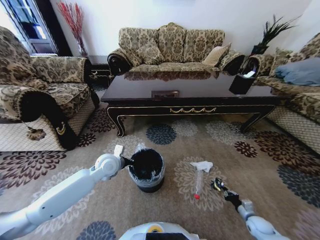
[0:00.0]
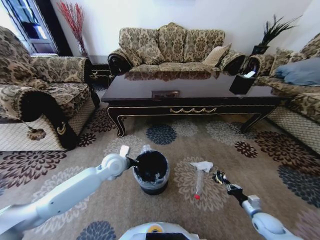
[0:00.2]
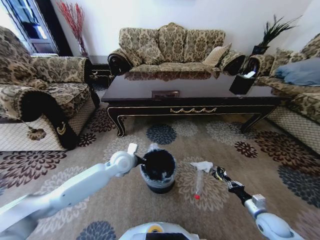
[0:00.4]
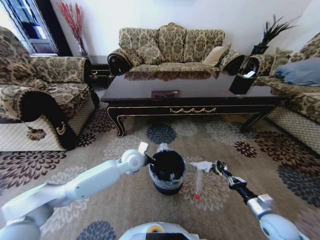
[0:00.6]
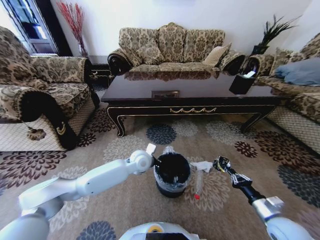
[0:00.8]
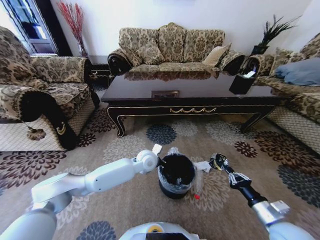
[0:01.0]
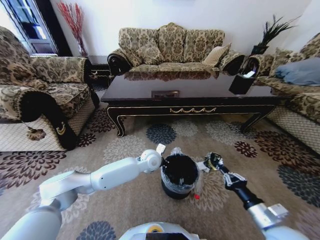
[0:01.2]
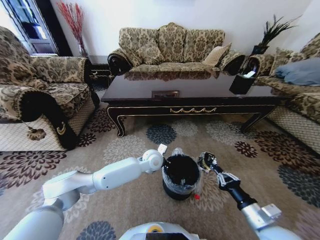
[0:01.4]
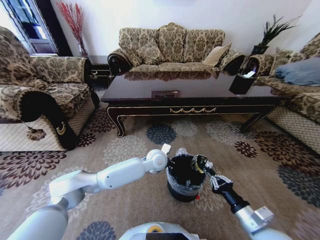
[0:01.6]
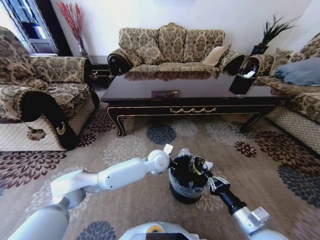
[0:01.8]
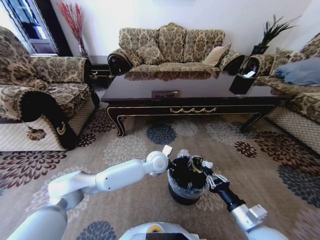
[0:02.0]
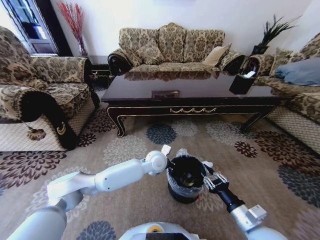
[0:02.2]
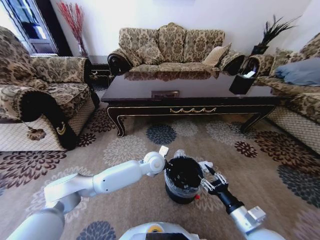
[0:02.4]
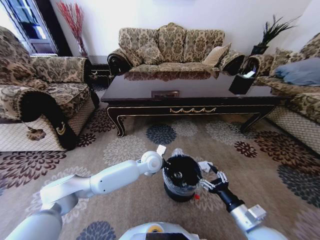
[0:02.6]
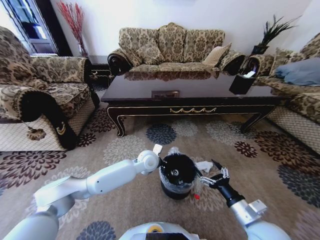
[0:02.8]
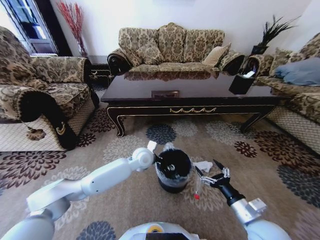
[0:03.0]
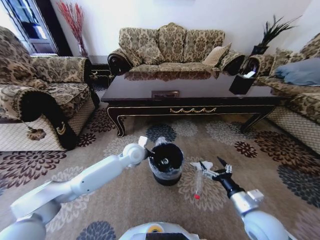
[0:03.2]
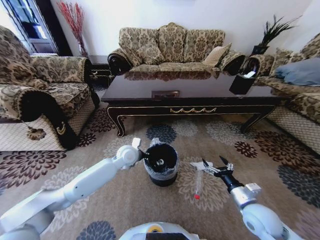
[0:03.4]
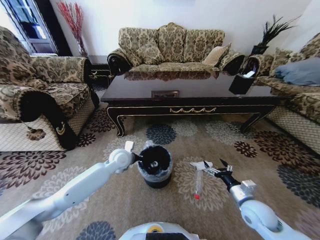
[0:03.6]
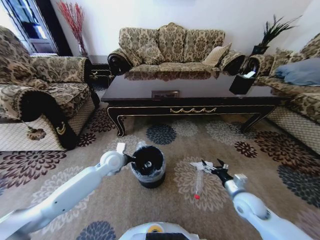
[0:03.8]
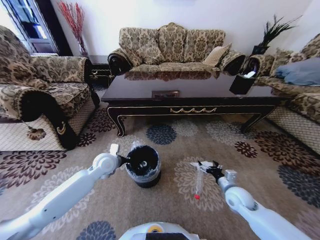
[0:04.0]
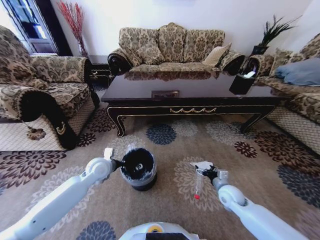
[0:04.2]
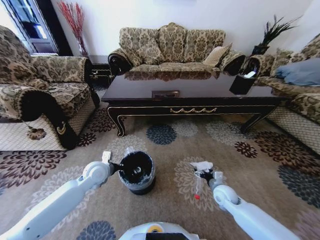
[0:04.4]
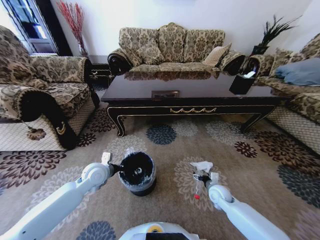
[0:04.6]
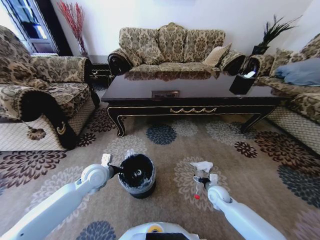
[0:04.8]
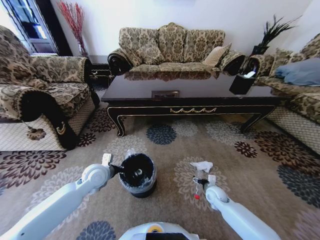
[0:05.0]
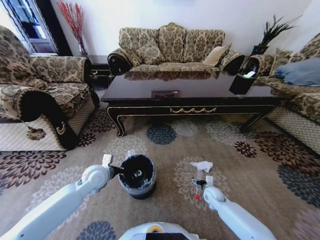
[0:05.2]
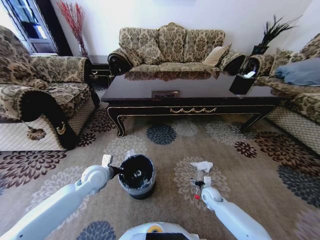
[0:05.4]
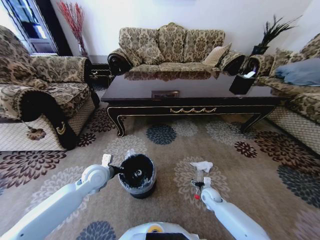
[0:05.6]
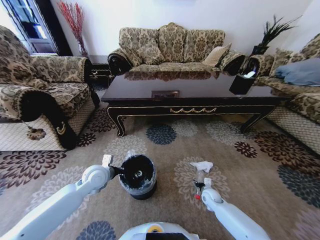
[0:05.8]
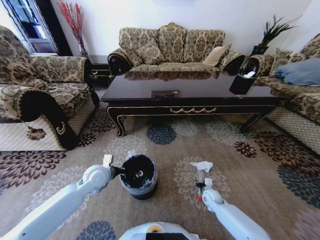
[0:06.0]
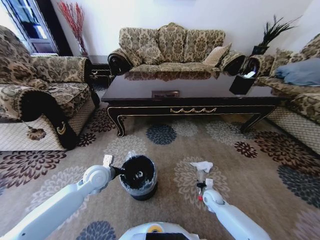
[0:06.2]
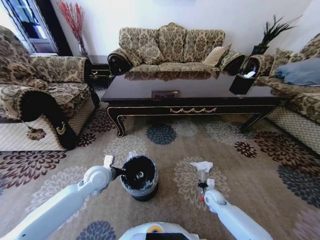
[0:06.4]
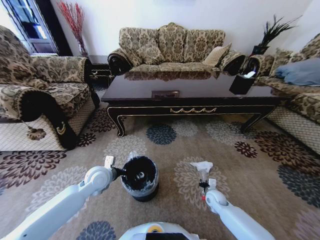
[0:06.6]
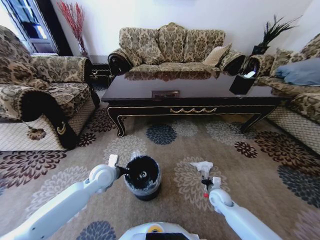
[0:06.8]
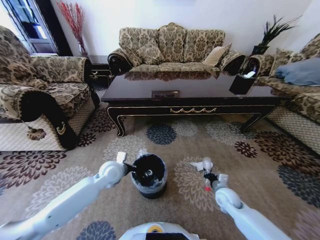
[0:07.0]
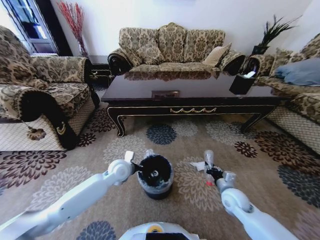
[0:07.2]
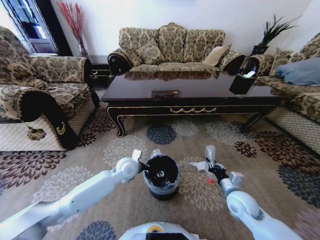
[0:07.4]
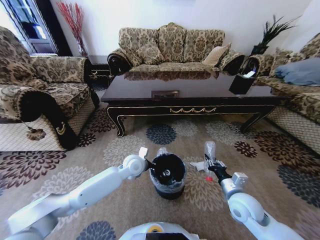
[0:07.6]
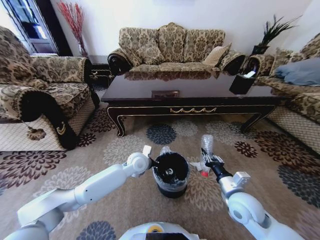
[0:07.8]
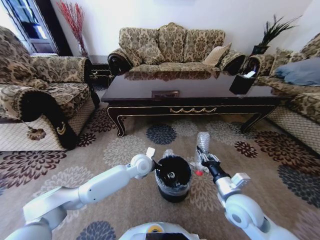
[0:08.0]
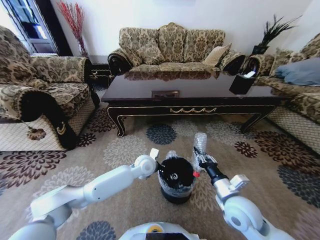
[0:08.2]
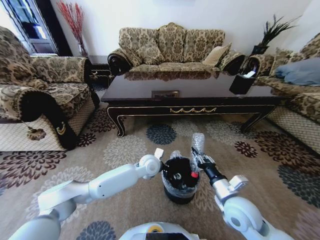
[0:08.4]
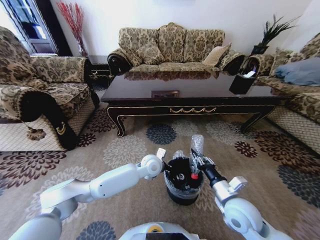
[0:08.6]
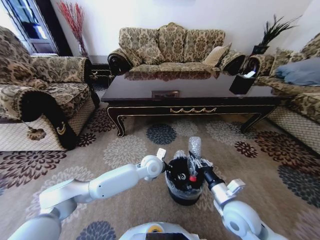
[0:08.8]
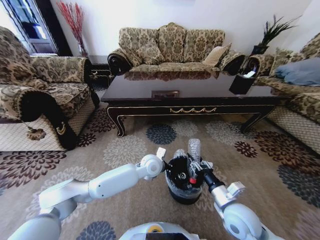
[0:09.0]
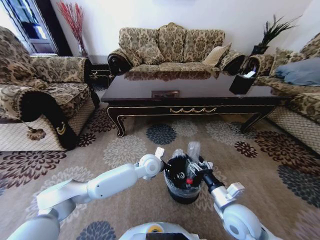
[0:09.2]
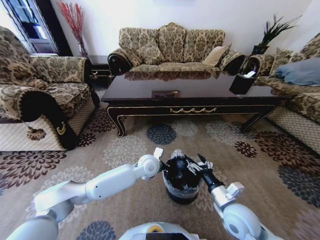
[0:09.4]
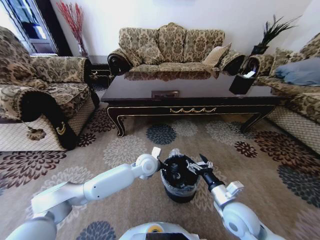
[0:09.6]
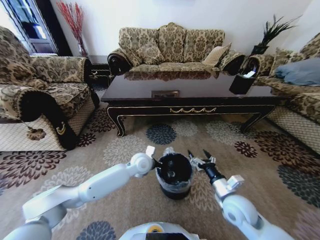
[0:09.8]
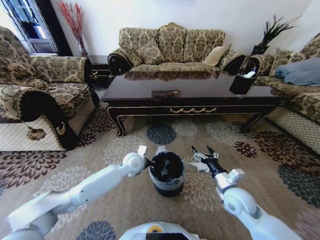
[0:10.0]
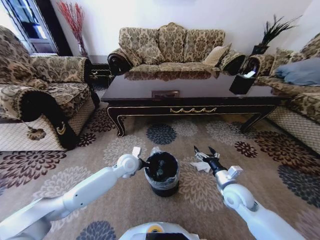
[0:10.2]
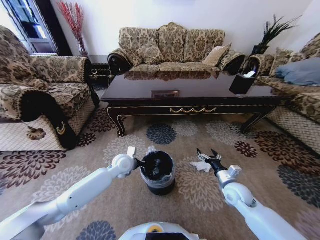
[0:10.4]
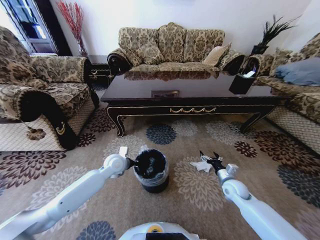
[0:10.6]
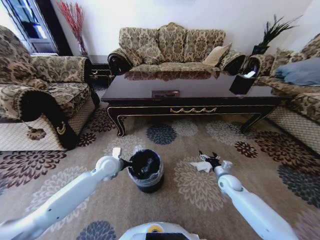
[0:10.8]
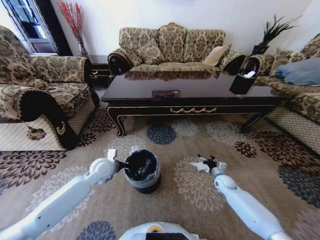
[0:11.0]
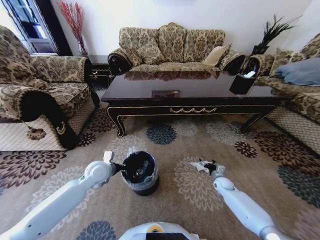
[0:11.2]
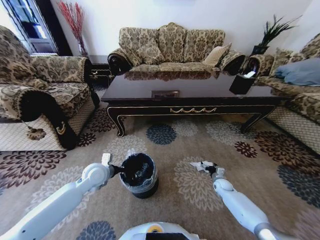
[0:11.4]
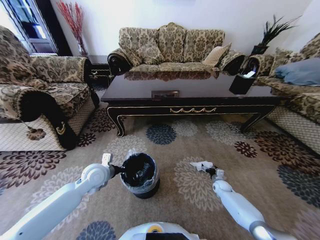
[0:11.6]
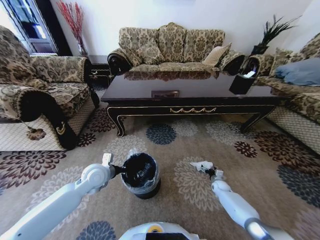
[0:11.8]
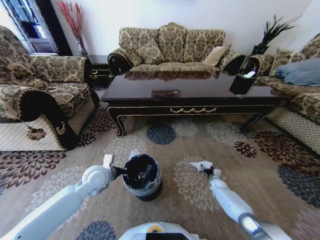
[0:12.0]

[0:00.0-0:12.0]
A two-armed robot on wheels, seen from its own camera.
Task of the whole recording: Move to the front of the table and pick up the trash from the floor, then place it into the trash bin.
0:00.0 to 0:01.6: The right gripper moves upward and to the left, roughly 30 cm; the left gripper is displaced to the right by roughly 20 cm.
0:01.6 to 0:03.0: The left gripper heads to the left, covering approximately 5 cm. Meanwhile the right gripper opens.
0:03.0 to 0:04.4: The right gripper is displaced forward and downward by roughly 20 cm. The left gripper is displaced to the left by about 20 cm.
0:04.4 to 0:06.0: The right gripper moves downward, some 10 cm, and closes.
0:06.0 to 0:07.6: The left gripper moves to the right, approximately 15 cm. The right gripper shifts roughly 25 cm upward and backward.
0:07.6 to 0:09.0: The left gripper is displaced to the right by approximately 10 cm. Meanwhile the right gripper shifts by roughly 5 cm.
0:09.0 to 0:10.4: The left gripper is displaced to the left by about 15 cm. Meanwhile the right gripper moves forward, to the right and downward, roughly 15 cm, and opens its fingers.
0:10.4 to 0:12.0: The right gripper shifts about 25 cm downward and forward. Meanwhile the left gripper is displaced to the left and backward by some 10 cm.

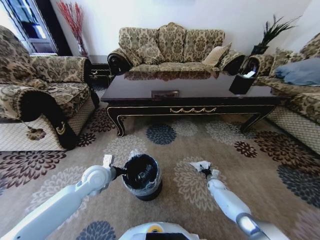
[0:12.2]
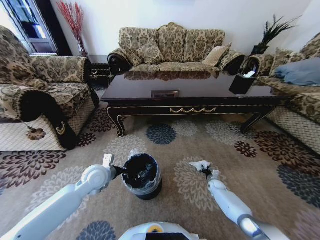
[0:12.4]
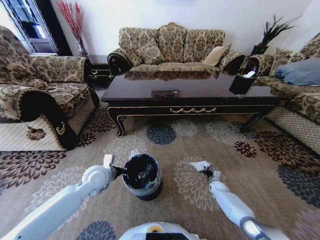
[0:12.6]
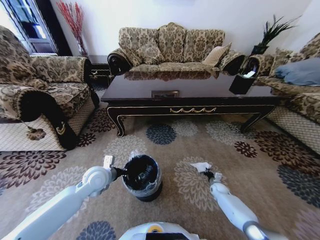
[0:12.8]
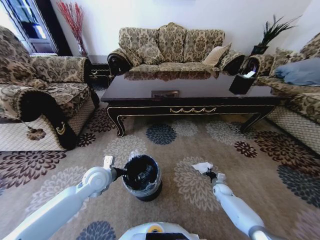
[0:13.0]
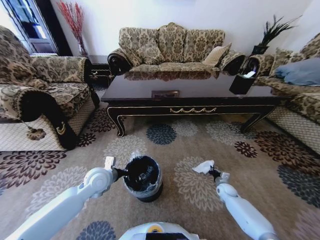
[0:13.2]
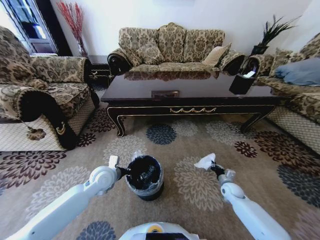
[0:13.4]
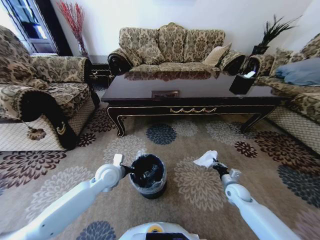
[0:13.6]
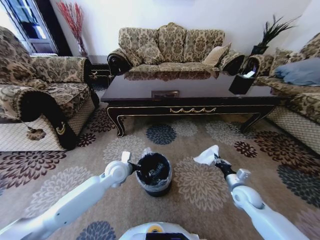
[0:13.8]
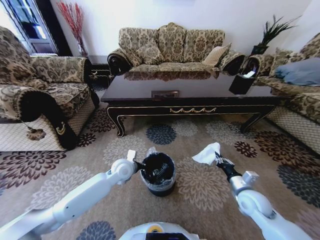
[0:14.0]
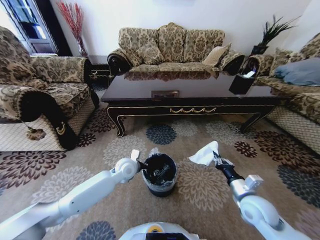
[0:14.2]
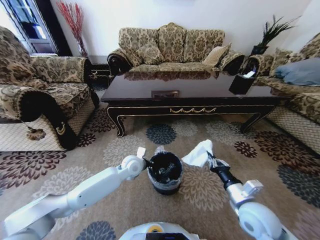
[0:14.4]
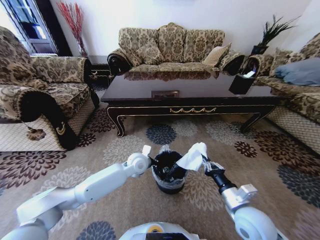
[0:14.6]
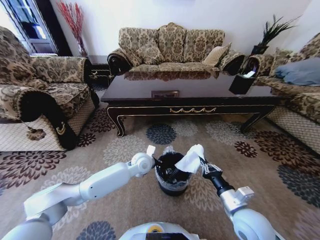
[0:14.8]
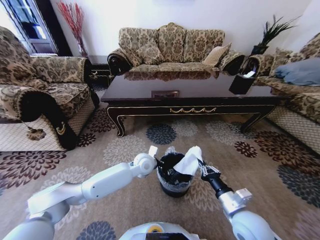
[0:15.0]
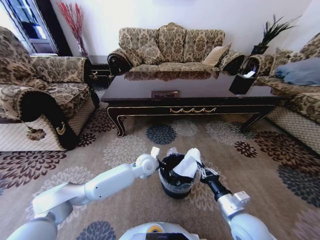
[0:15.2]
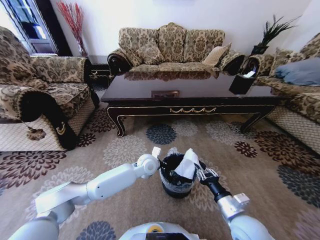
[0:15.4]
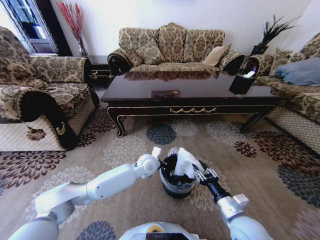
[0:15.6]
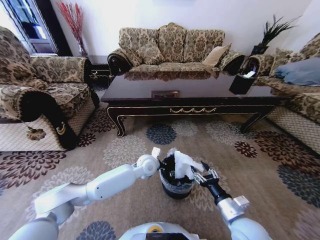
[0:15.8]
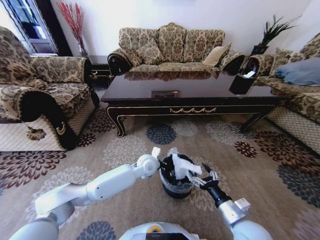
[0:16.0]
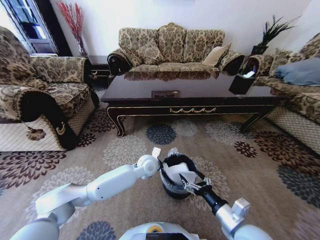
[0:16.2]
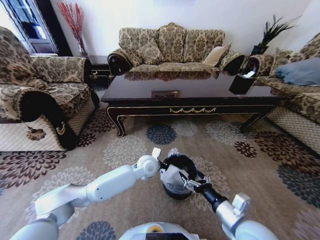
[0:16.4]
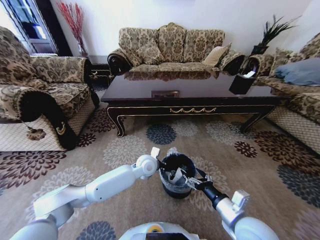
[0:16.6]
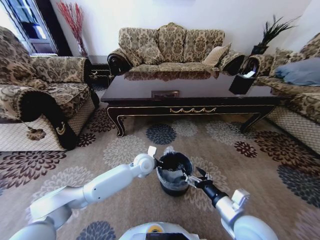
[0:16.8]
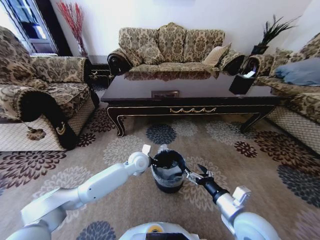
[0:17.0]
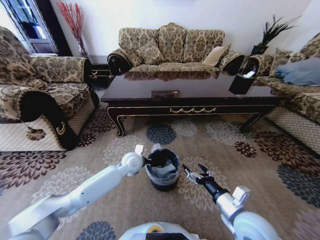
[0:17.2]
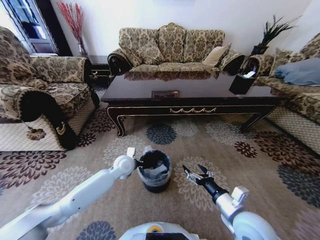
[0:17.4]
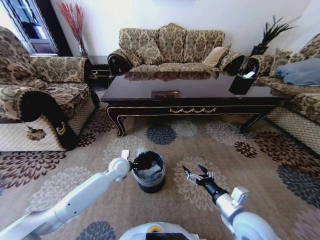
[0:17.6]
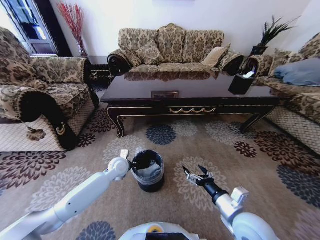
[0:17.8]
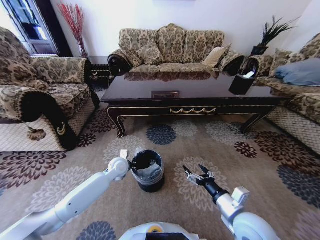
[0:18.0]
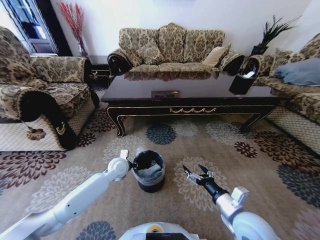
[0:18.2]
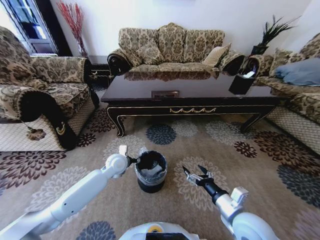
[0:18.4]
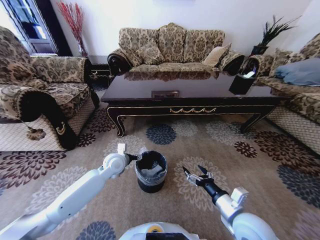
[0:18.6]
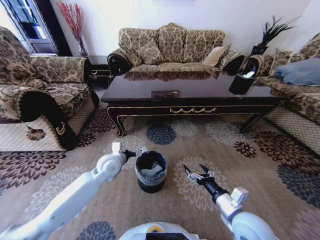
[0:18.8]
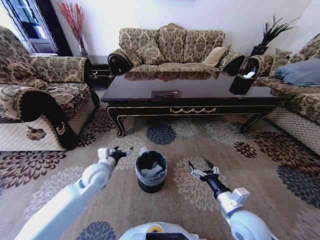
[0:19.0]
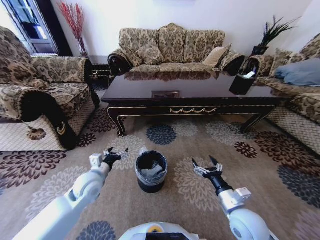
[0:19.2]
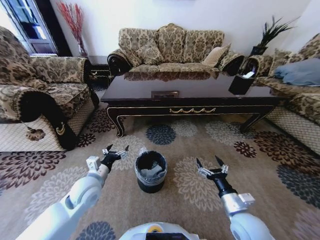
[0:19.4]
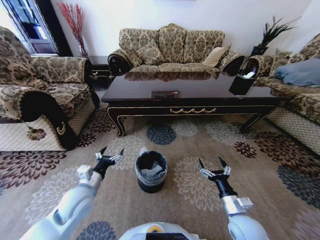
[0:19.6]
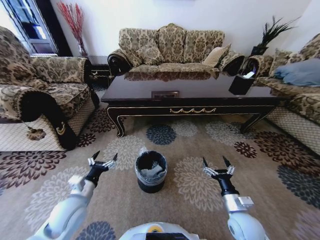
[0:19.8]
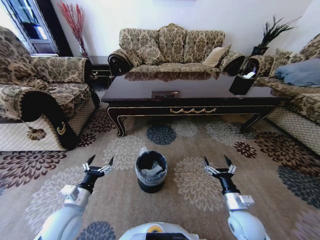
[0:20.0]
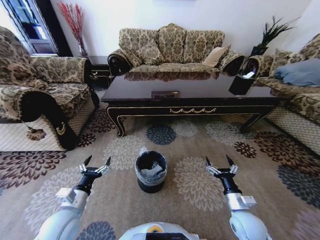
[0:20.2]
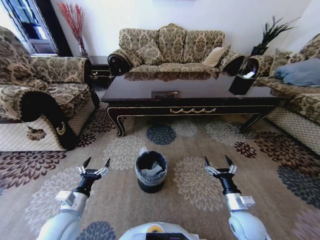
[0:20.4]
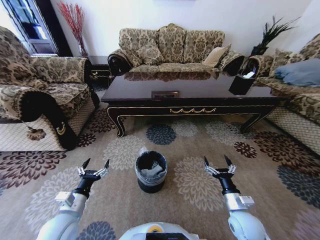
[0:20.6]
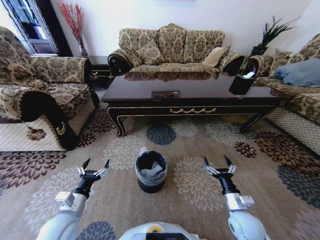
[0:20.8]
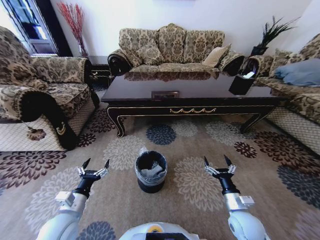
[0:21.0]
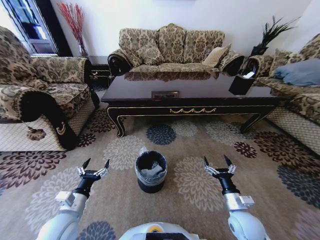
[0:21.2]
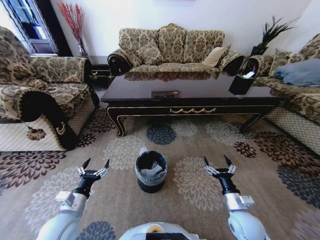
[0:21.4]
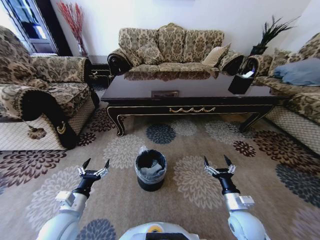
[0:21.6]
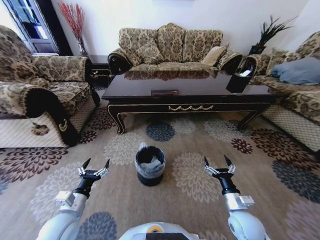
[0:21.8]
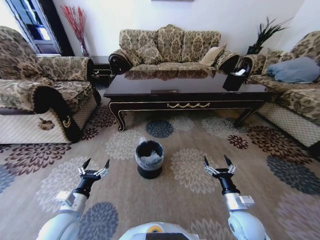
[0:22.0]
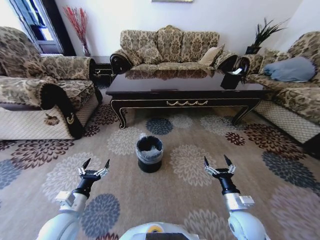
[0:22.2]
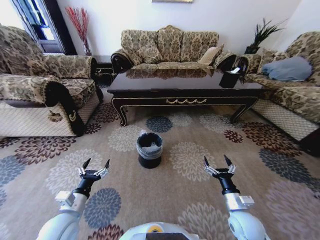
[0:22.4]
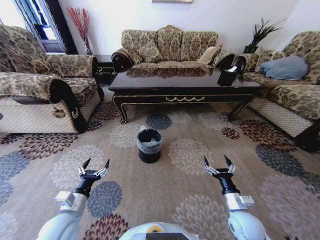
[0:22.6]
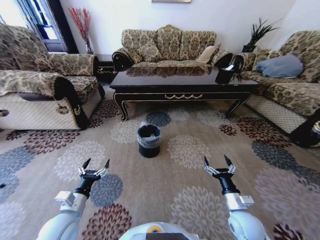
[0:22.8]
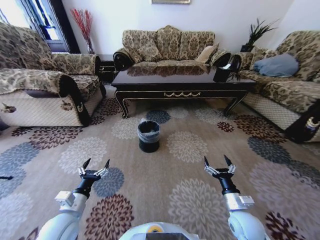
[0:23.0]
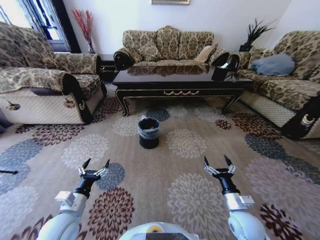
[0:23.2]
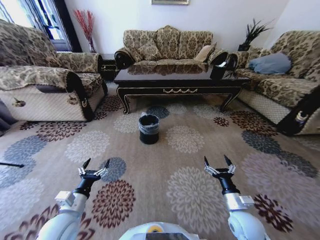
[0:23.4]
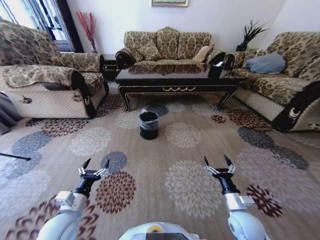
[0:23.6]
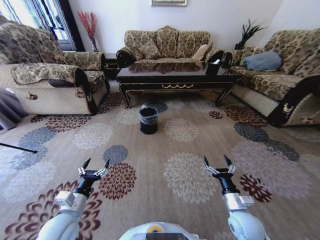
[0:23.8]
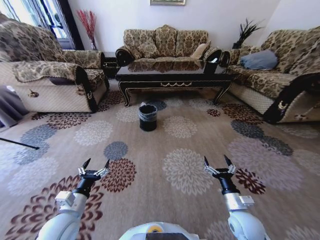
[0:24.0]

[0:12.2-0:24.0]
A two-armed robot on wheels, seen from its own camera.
Task of the whole recording: Move to the front of the table and pick up the trash from the floor, then place it into the trash bin.
0:12.2 to 0:13.6: The right gripper travels upward and backward by roughly 15 cm, and closes.
0:13.6 to 0:15.2: The right gripper is displaced backward, upward and to the left by roughly 25 cm. The left gripper travels to the right by some 15 cm.
0:15.2 to 0:16.6: The right gripper opens its fingers.
0:16.6 to 0:18.2: The left gripper heads to the left, covering roughly 15 cm, and opens up.
0:18.2 to 0:19.6: The left gripper travels backward and to the left by some 20 cm, and opens. Meanwhile the right gripper travels downward by some 5 cm.
0:19.6 to 0:21.0: The left gripper goes some 5 cm backward.
